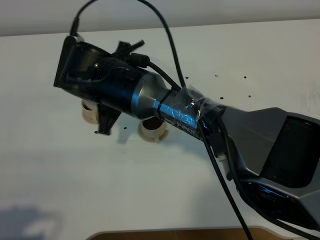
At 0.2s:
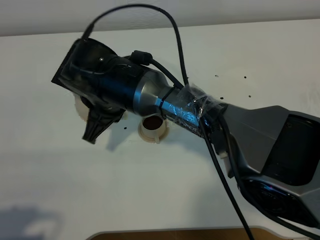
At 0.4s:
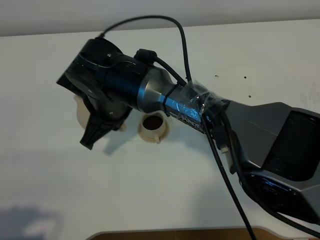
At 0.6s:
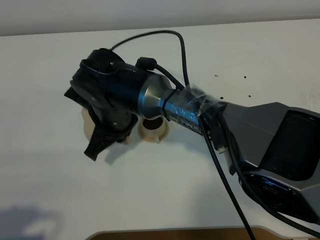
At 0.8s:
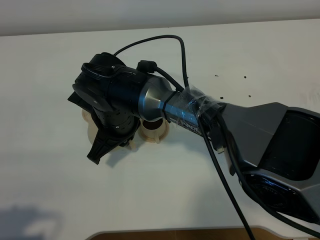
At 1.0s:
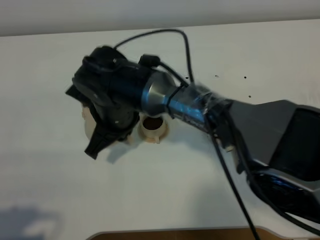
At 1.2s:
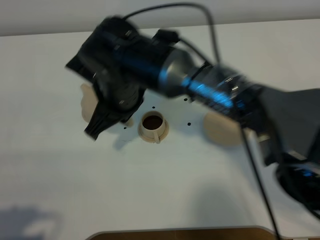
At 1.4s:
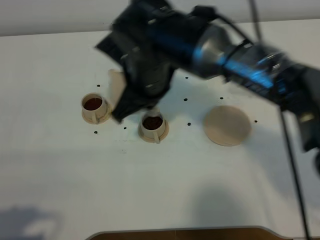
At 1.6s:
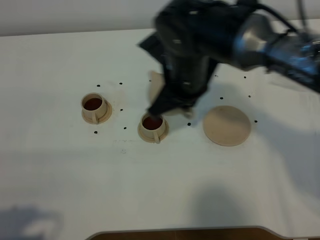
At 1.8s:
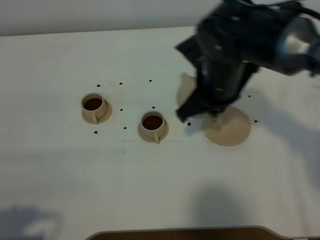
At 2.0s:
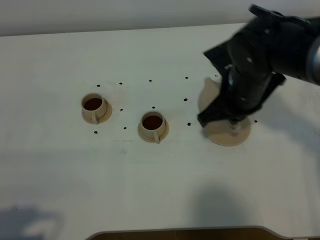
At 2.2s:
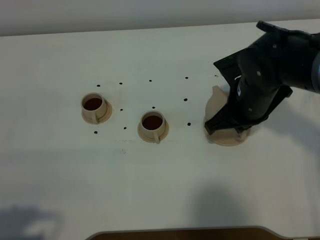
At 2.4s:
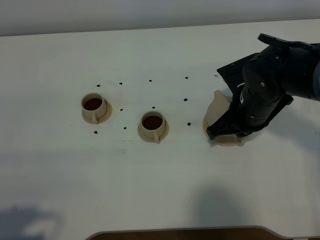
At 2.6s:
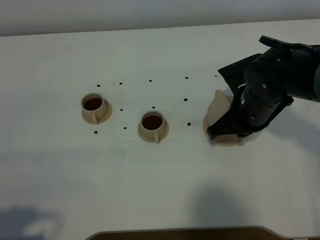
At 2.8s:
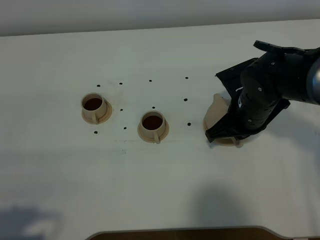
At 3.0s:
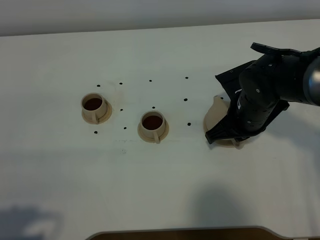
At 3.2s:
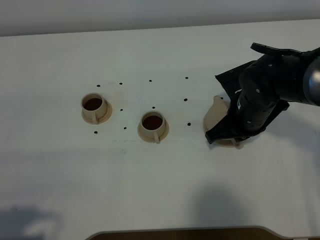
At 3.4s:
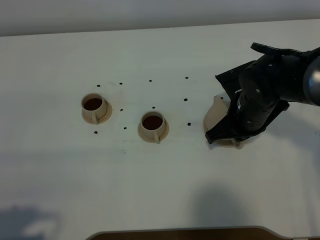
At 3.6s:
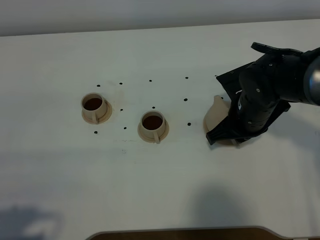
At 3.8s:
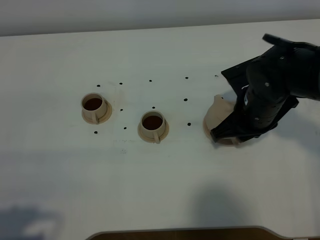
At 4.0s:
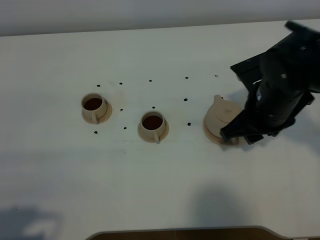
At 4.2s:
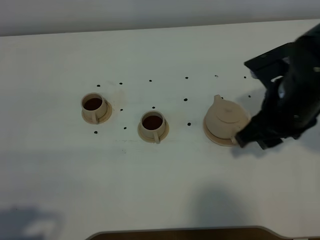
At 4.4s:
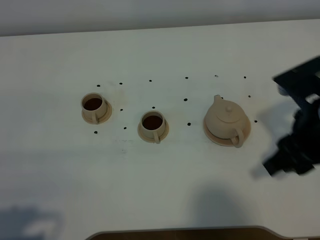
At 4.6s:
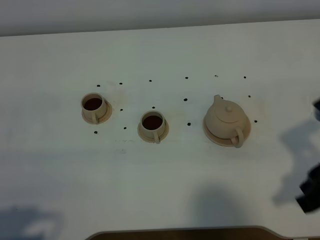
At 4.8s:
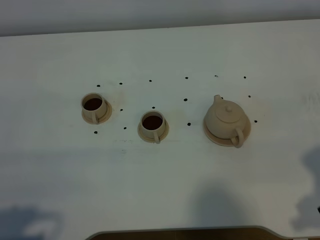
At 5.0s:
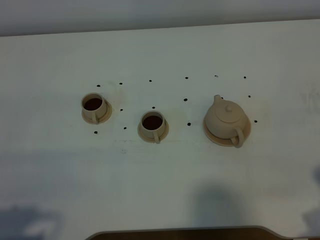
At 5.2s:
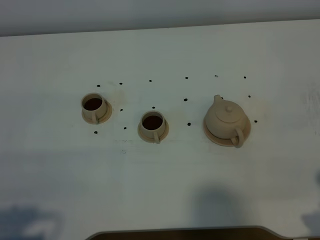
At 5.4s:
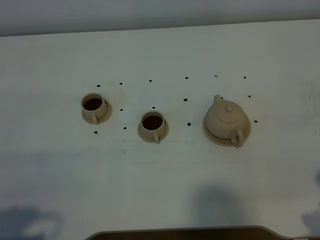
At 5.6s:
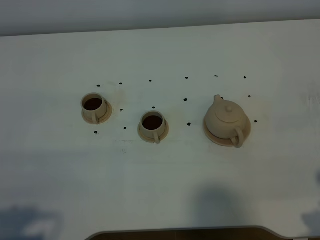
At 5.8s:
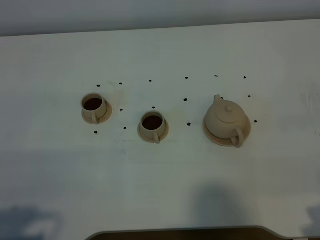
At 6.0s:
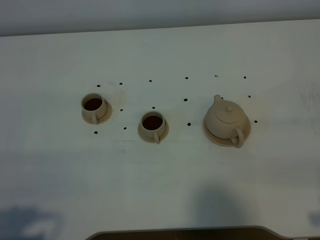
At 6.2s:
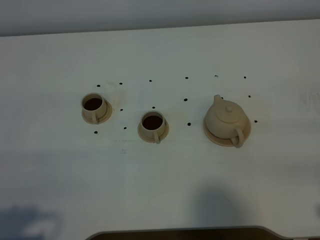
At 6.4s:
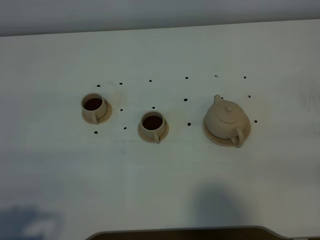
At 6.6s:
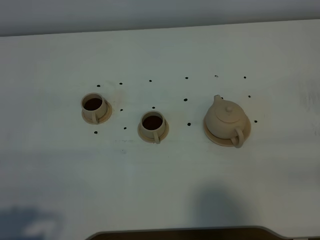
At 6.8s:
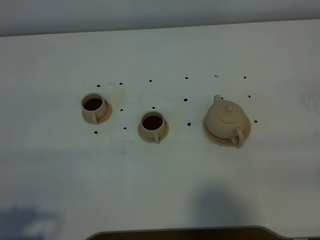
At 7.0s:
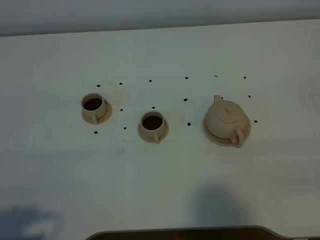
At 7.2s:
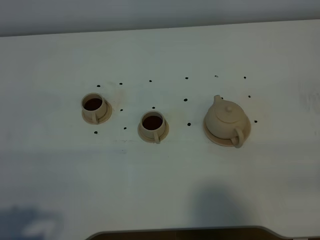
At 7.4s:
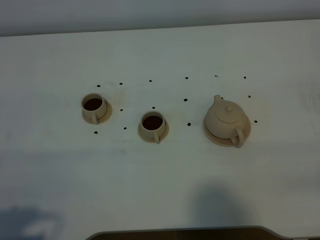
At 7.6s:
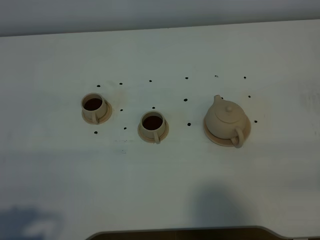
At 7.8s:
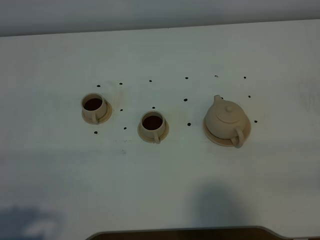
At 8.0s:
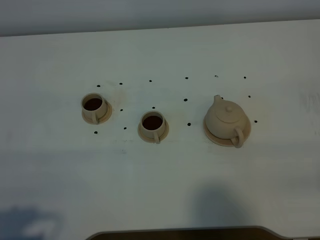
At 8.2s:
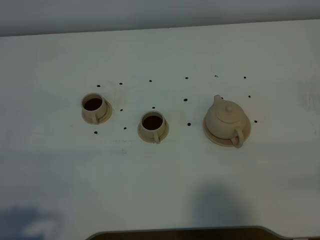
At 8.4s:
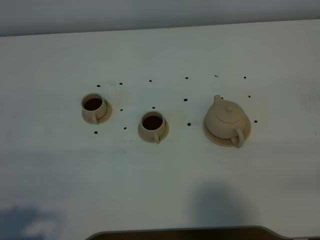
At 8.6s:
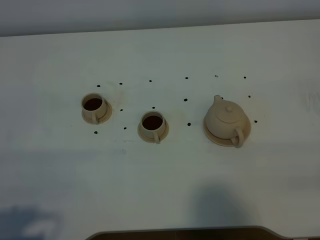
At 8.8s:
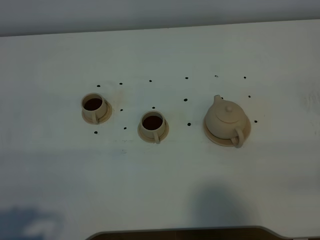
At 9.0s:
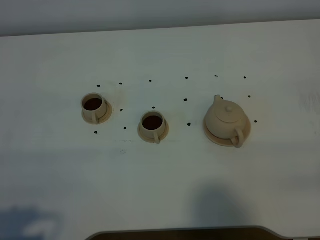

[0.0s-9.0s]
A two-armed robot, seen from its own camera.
Task of the whole recording: grasp the brown teapot and pour the tea into the two brown teacups one by one, put the brown teapot back in its original place.
0.0s to 1.6s: The right gripper moves to the right, roughly 15 cm.
1.6s to 3.0s: The right gripper moves to the right and downward, some 15 cm.
3.0s to 4.4s: The right gripper shifts some 15 cm backward and upward, and opens.
4.4s to 6.0s: The right gripper shifts about 15 cm backward and to the right.
7.6s to 9.0s: Both grippers stay put.
